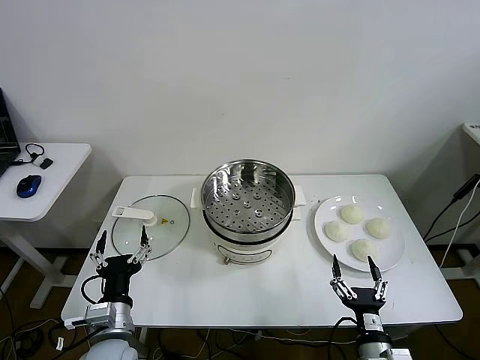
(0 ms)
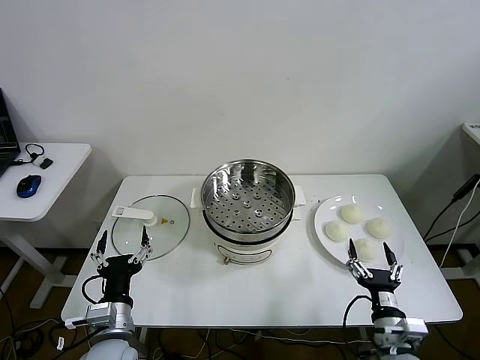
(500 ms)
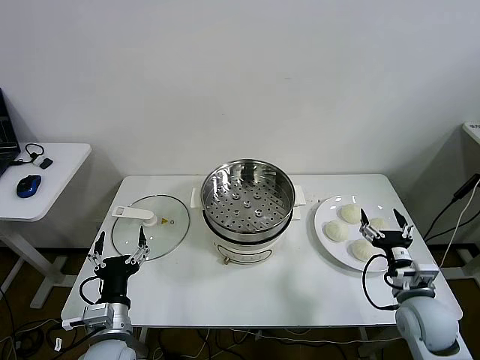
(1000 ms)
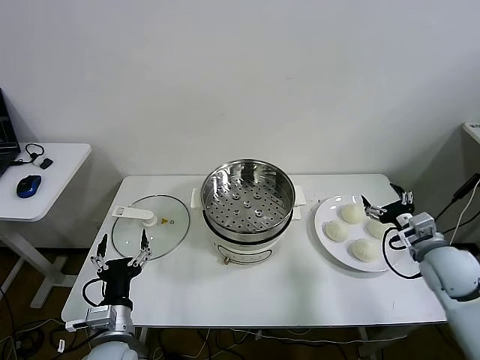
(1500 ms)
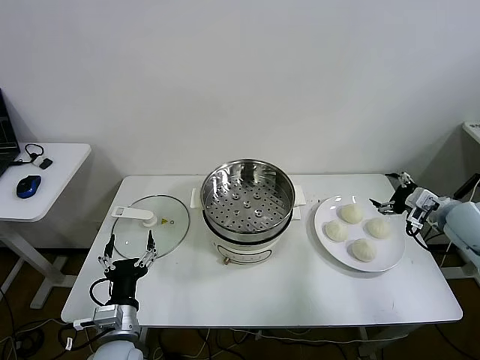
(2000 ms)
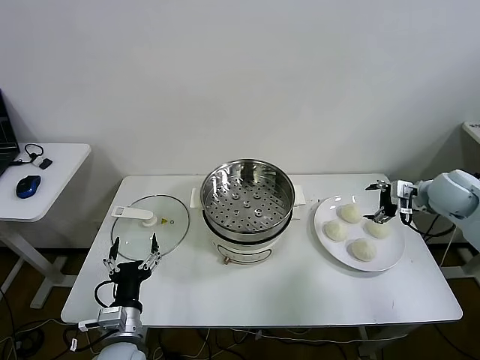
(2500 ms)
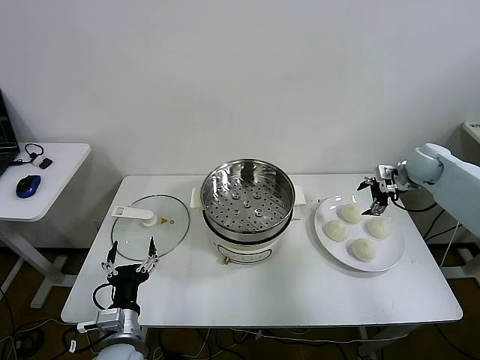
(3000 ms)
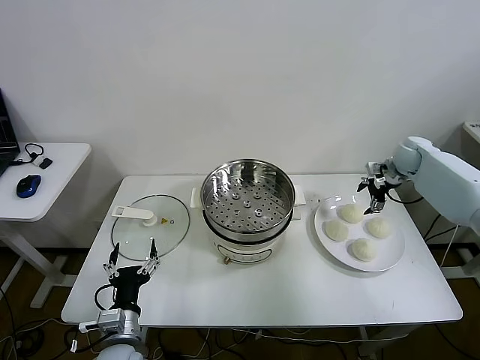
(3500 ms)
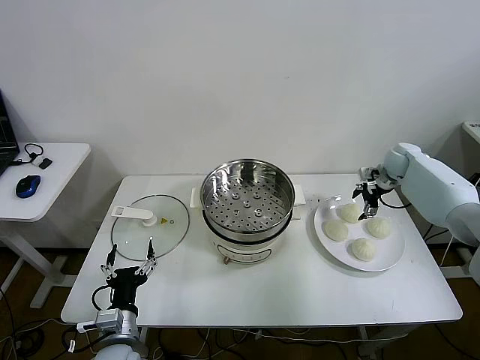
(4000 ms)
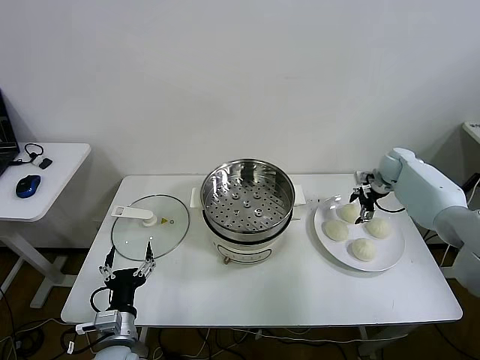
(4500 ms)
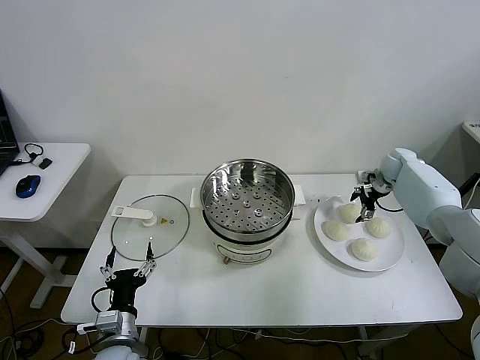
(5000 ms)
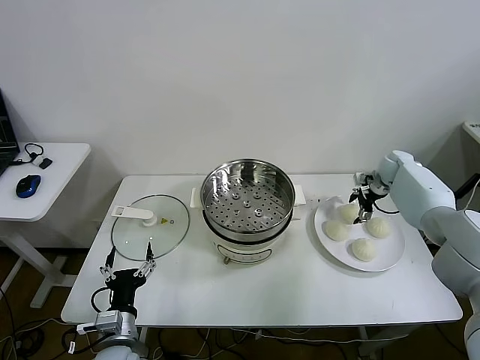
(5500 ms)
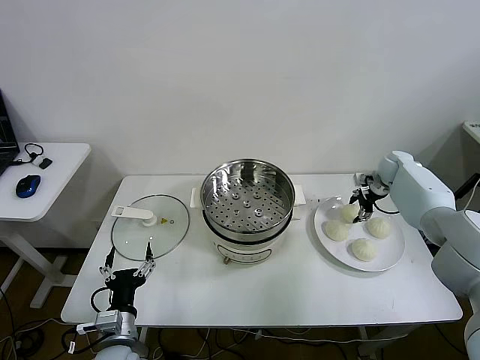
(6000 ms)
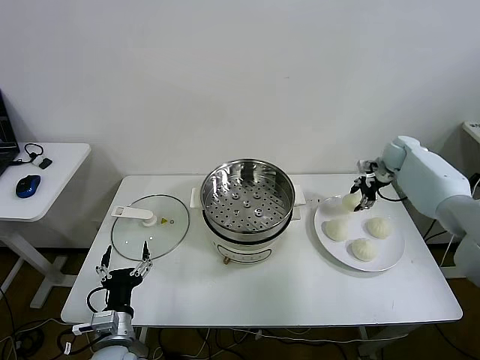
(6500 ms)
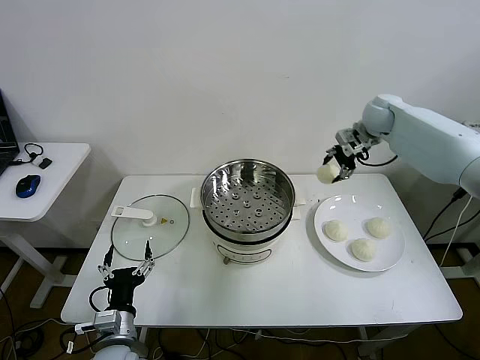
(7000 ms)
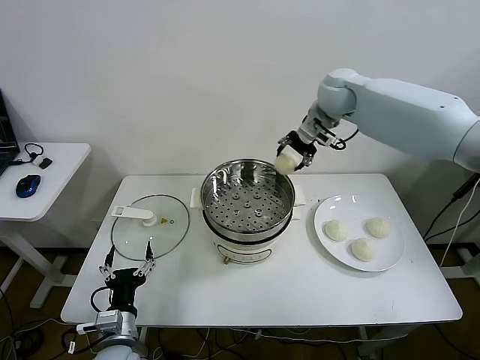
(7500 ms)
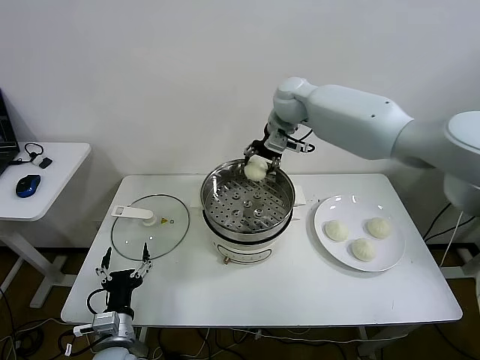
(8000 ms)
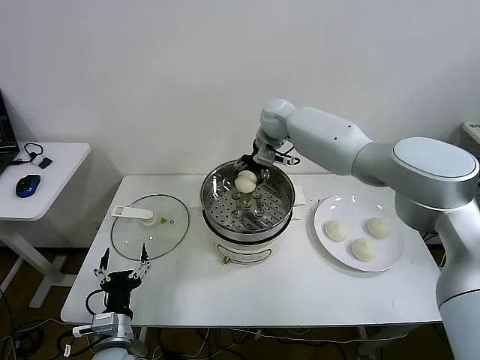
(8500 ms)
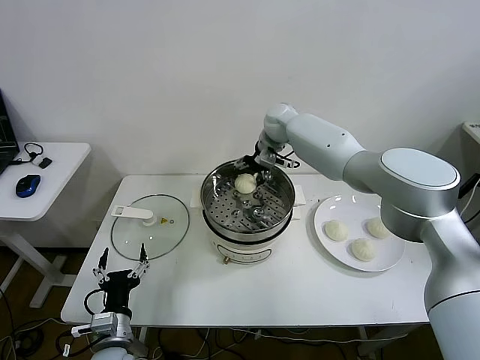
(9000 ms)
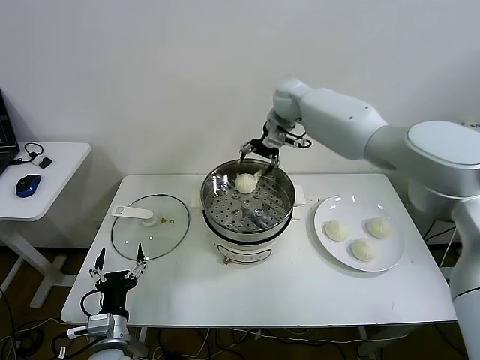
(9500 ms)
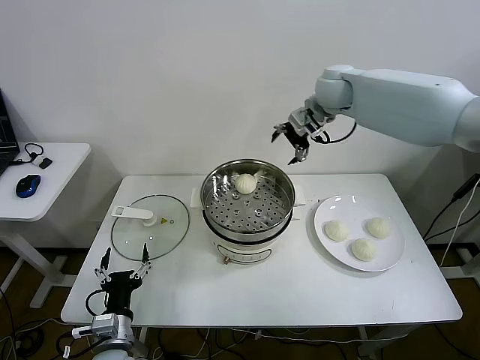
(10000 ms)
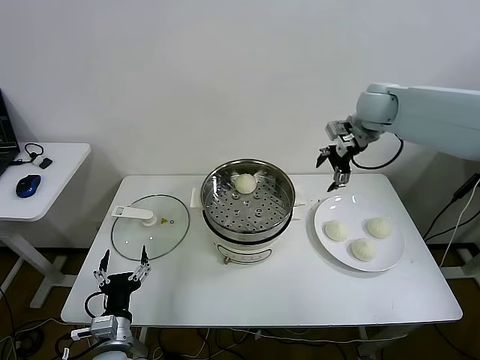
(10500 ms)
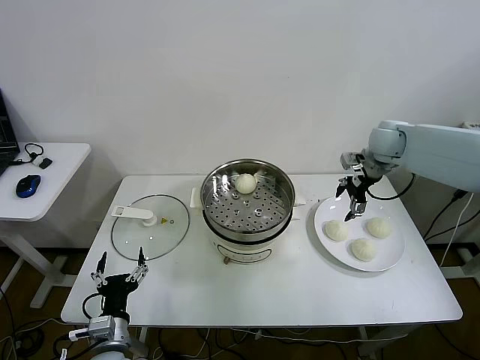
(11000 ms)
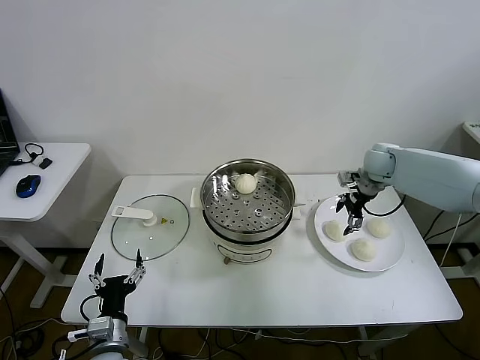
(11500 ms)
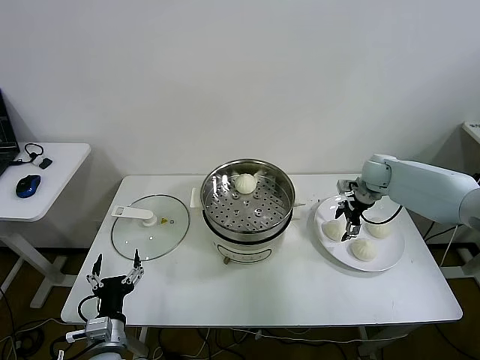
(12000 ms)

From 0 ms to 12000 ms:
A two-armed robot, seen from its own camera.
Step, from 0 ms to 5500 ms: Grasp the baozi in the plate with right gripper.
Step, from 6000 ms to 9000 ms: Place the baozi on the steamer with right gripper.
From 2000 ms to 4000 ms: The right gripper is displaced forward by some 20 cm.
From 4000 ms to 6000 ms: The grippers move only a little.
From 6000 ms to 8000 ms: The right gripper moves to the left and upward, roughly 40 cm.
From 8000 ms to 10000 ms: The right gripper moves to the right, roughly 10 cm, and opens up.
From 10000 ms to 12000 ms: The right gripper goes about 25 cm downward and to the right.

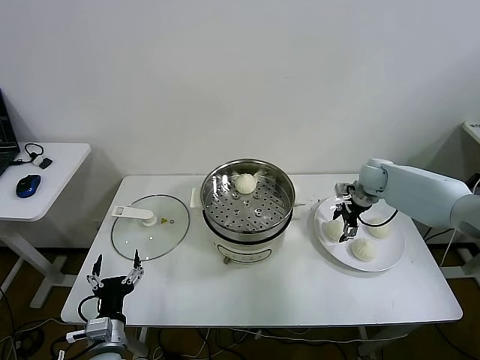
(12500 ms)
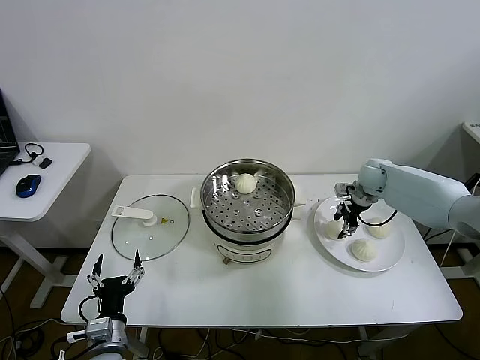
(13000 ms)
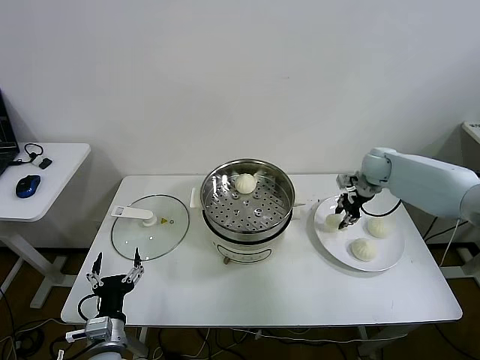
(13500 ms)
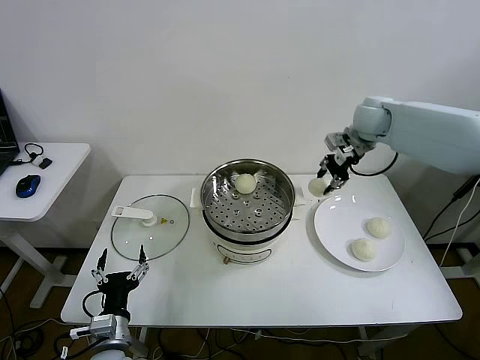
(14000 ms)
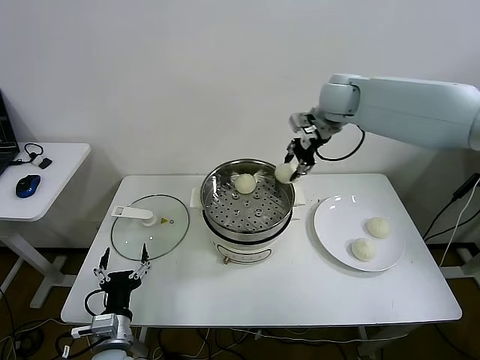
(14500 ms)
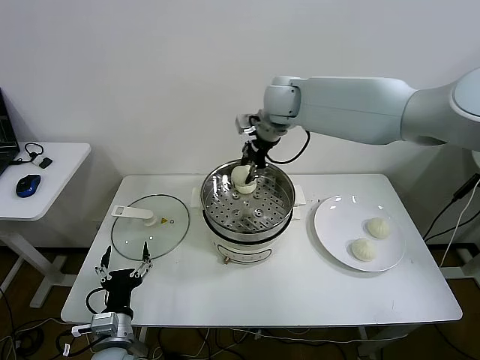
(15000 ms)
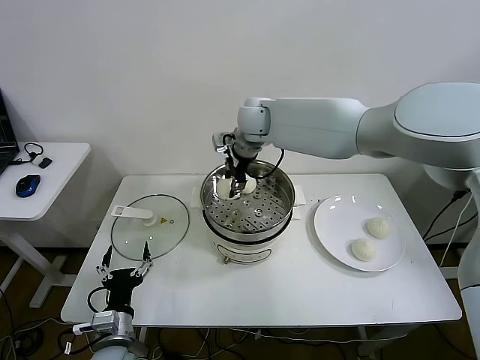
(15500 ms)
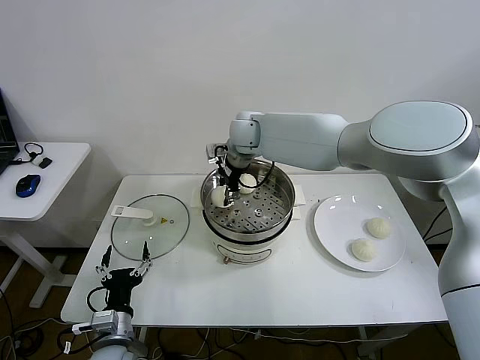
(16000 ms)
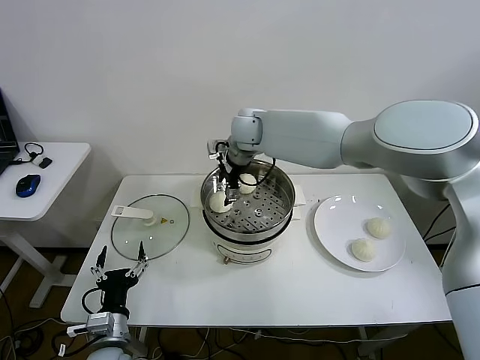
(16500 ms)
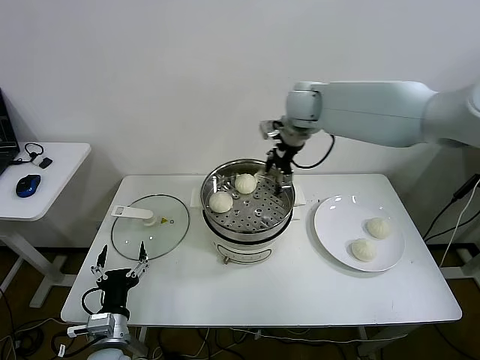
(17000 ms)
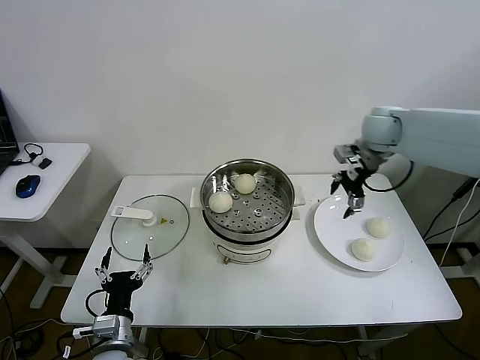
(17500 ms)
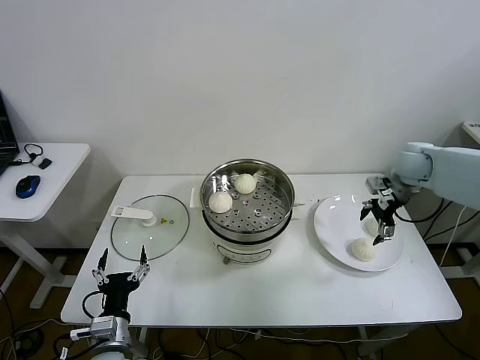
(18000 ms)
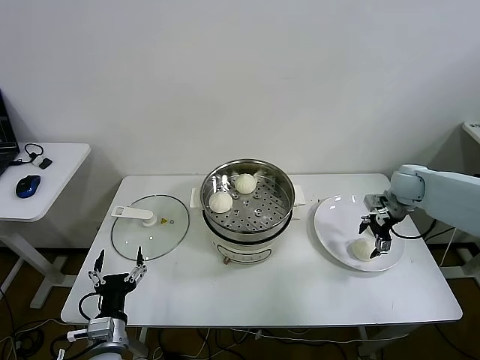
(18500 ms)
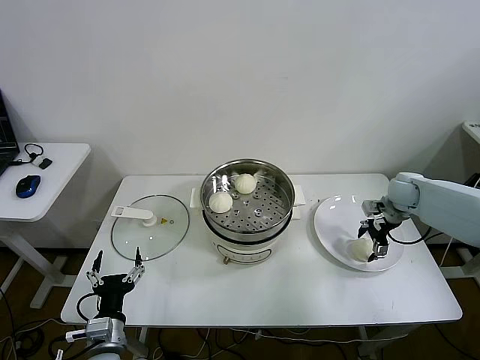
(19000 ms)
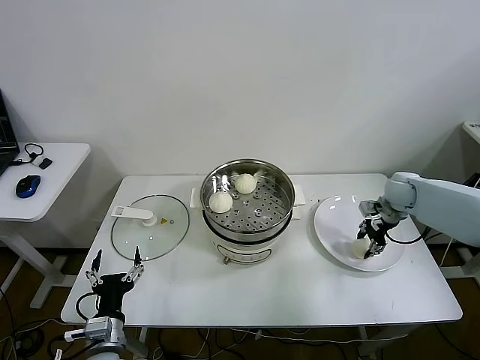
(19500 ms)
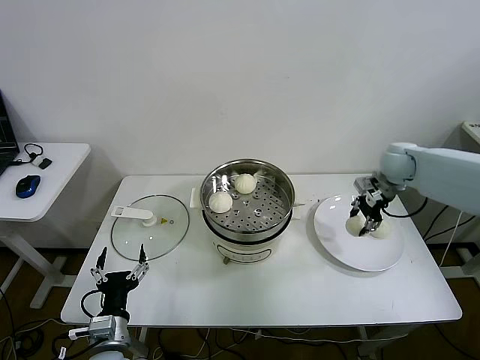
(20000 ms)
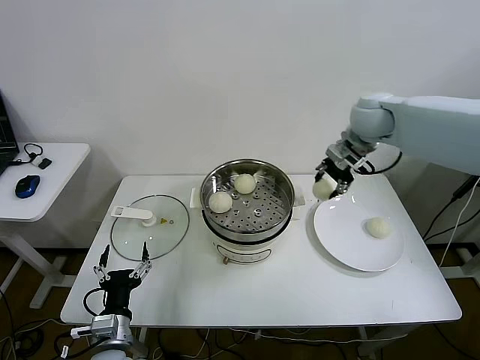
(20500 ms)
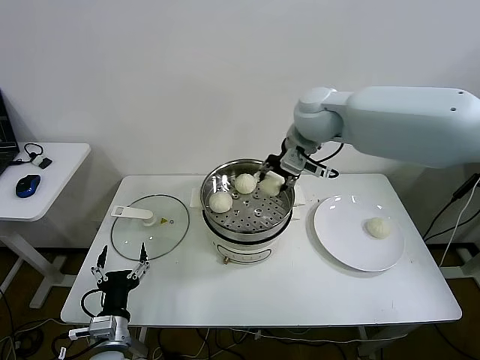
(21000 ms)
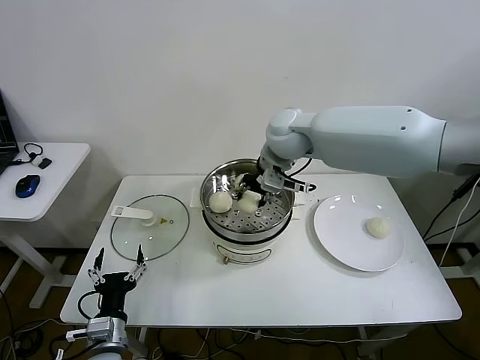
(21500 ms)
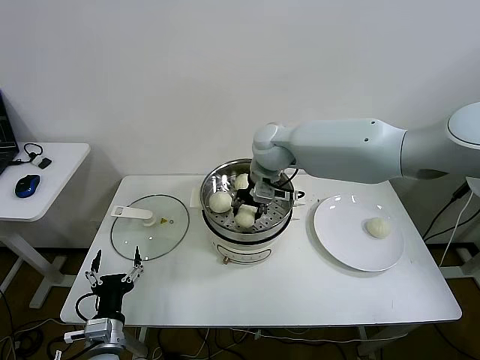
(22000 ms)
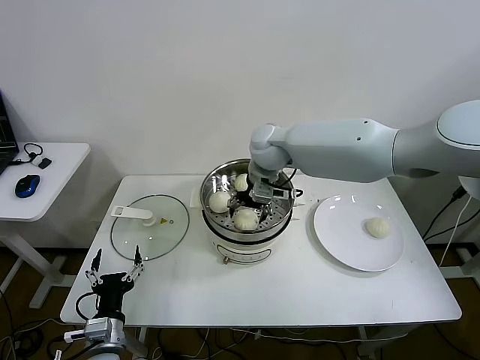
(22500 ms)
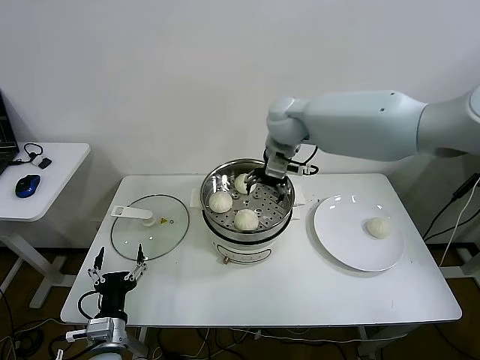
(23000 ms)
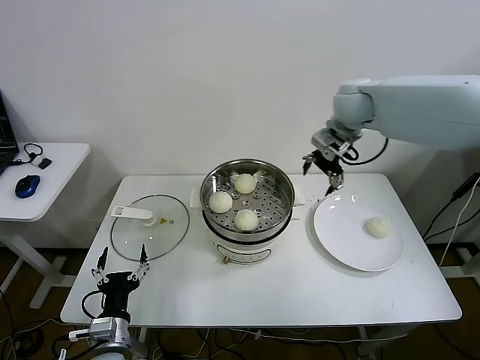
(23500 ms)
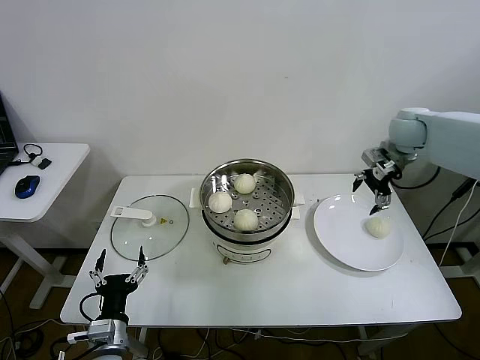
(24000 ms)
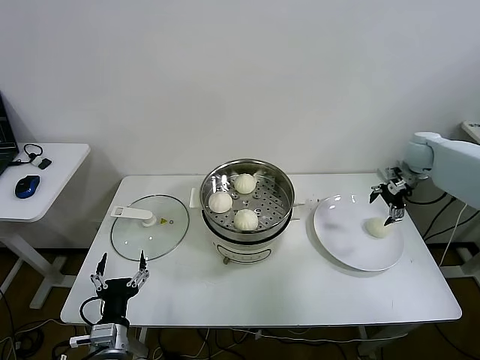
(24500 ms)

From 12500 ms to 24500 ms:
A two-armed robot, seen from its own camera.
Step, from 13500 ms to 16500 ms: Place the baozi on the steamer with right gripper.
Step, from 17000 ms to 19000 ms: Grasp the baozi in the plate with right gripper.
Step, from 19500 ms to 22500 ms: Place the baozi on the steamer with right gripper.
From 12500 ms to 14500 ms: The right gripper is displaced upward and to the left by roughly 30 cm, and closes.
From 14500 ms to 16500 ms: The right gripper goes about 20 cm to the left and downward, and opens its fingers.
From 16500 ms to 18500 ms: The right gripper shifts some 40 cm to the right.
From 18500 ms to 20500 ms: The right gripper heads upward and to the left, covering some 25 cm, and closes its fingers.
From 20500 ms to 22500 ms: The right gripper travels to the left by some 20 cm, and opens up.
From 22500 ms to 24500 ms: The right gripper is displaced to the right by some 40 cm.

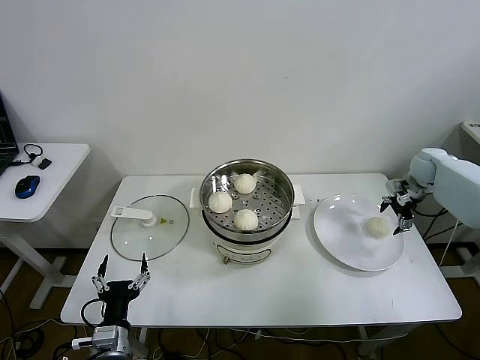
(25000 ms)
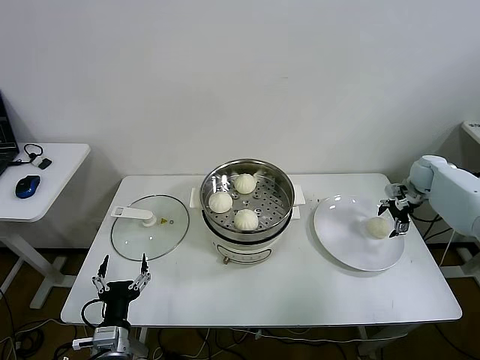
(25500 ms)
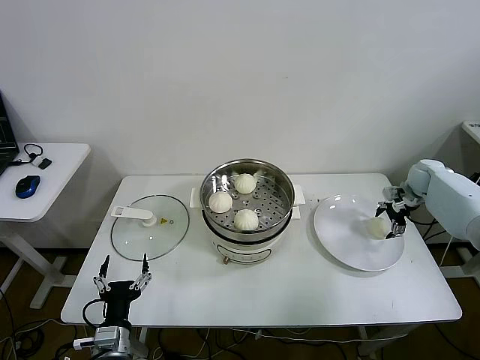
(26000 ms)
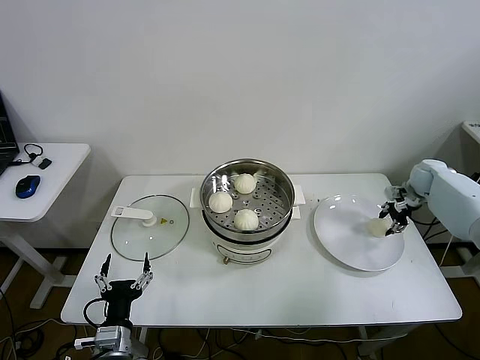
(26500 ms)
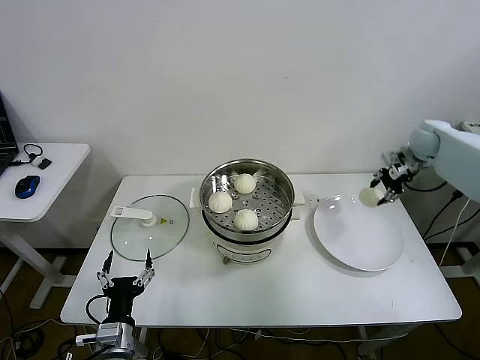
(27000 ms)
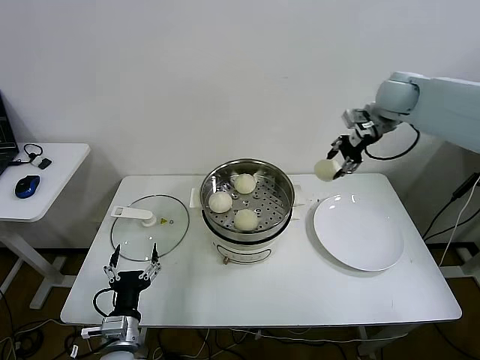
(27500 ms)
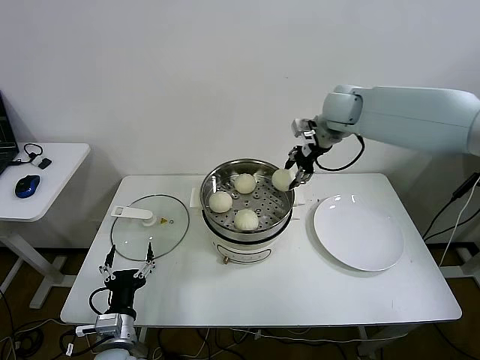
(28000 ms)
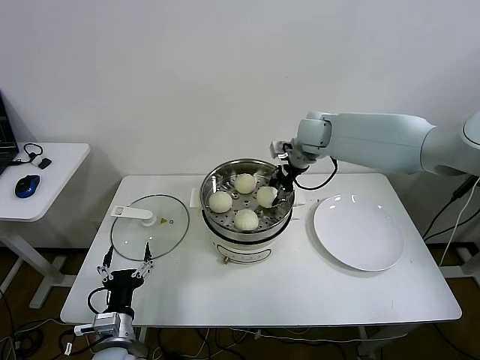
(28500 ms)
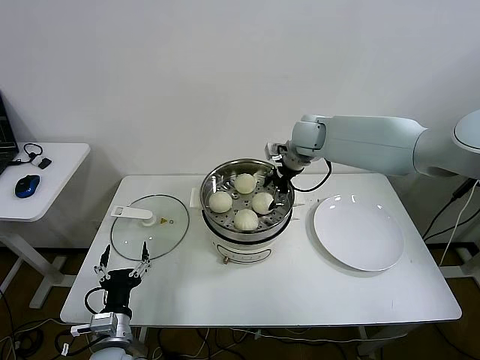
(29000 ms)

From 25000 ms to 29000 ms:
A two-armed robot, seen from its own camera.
From 25000 ms to 27000 ms: The right gripper moves upward, some 5 cm, and closes its fingers.
From 27000 ms to 29000 ms: The right gripper shifts some 30 cm to the left, and opens up.
